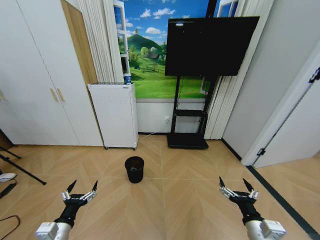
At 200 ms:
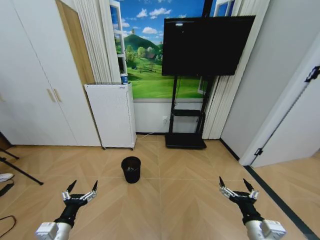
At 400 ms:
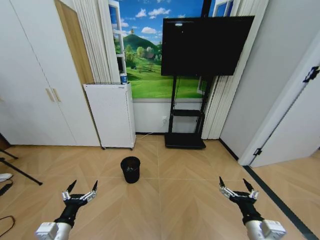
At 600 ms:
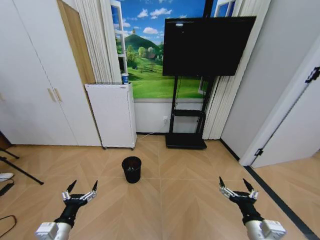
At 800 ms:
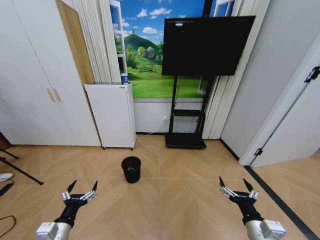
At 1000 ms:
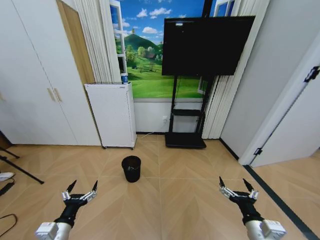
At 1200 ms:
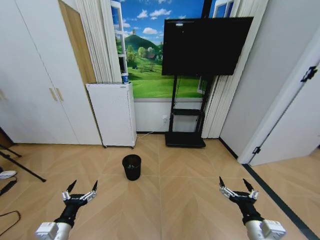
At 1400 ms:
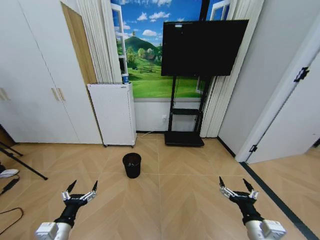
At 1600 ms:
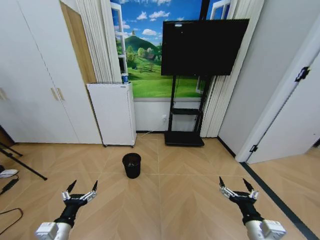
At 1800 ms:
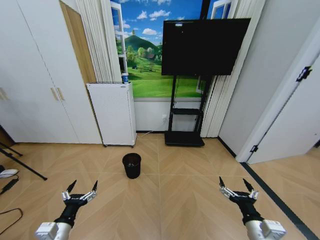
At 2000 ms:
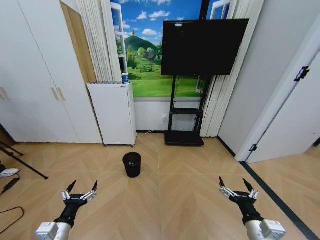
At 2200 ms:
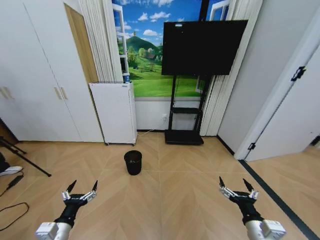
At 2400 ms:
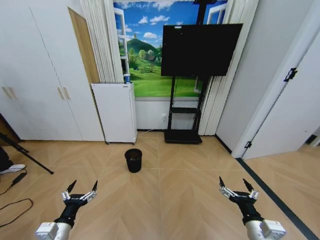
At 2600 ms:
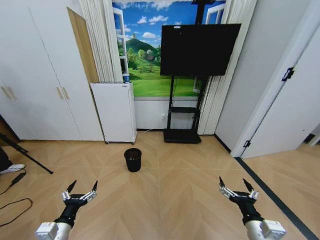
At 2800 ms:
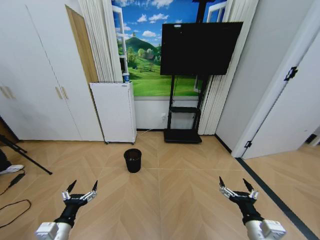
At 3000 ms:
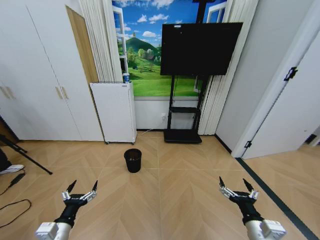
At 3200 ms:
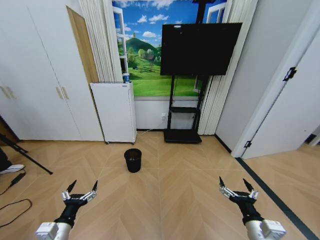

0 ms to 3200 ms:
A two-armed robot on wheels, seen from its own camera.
Task of the whole recording: Pick up the trash bin and place the garbage on the floor into it.
0 ms to 3200 ms: The two grippers keep their place.

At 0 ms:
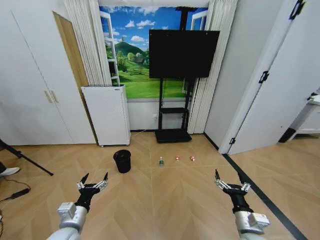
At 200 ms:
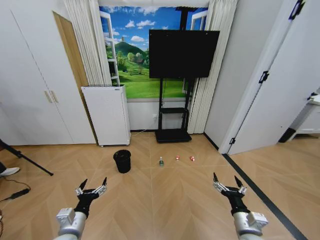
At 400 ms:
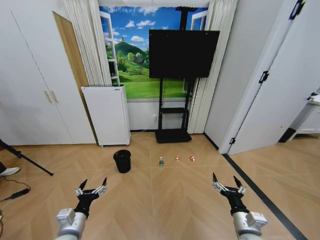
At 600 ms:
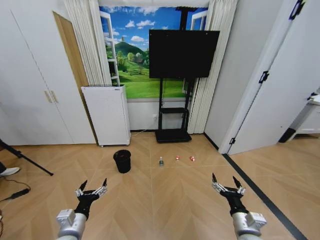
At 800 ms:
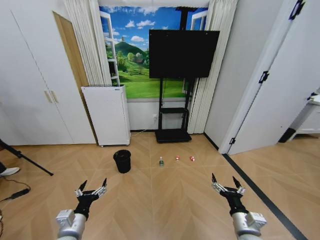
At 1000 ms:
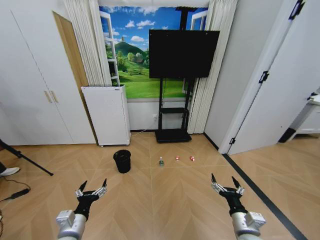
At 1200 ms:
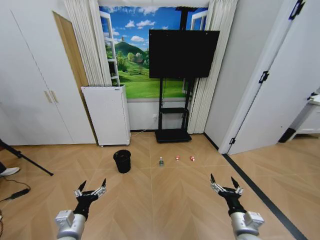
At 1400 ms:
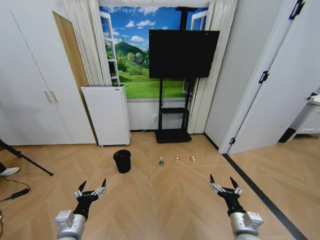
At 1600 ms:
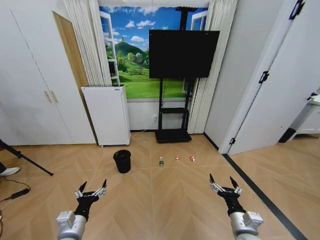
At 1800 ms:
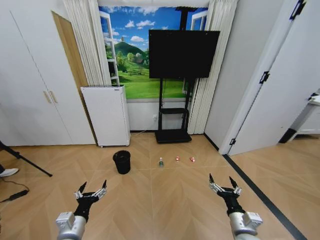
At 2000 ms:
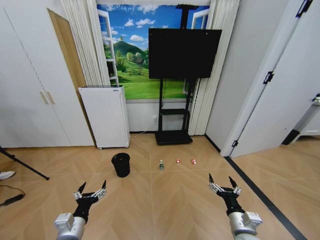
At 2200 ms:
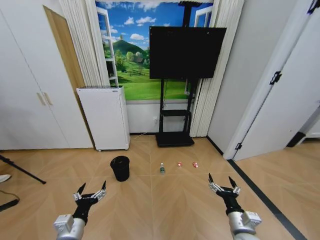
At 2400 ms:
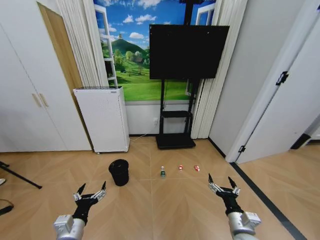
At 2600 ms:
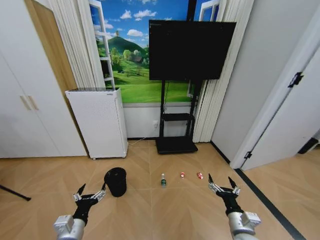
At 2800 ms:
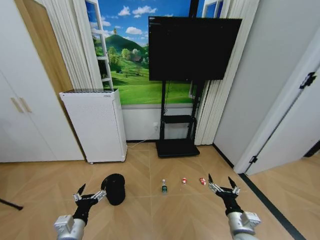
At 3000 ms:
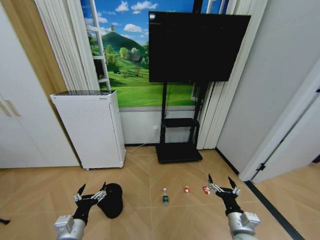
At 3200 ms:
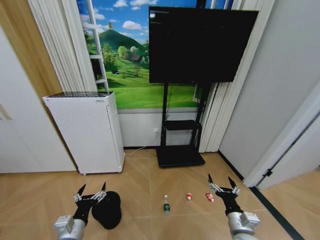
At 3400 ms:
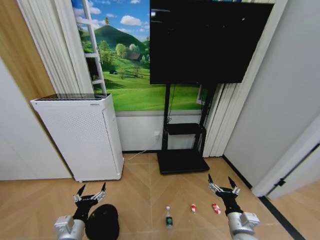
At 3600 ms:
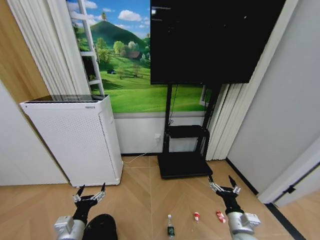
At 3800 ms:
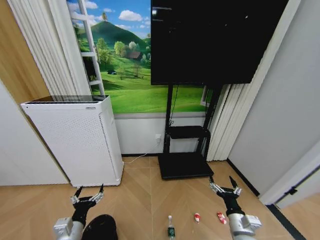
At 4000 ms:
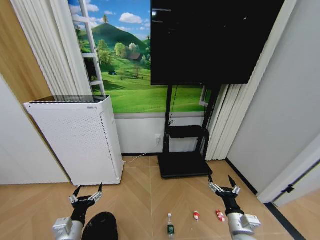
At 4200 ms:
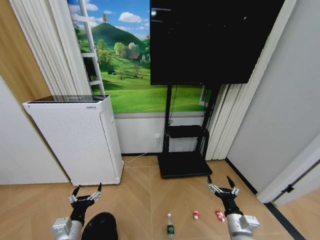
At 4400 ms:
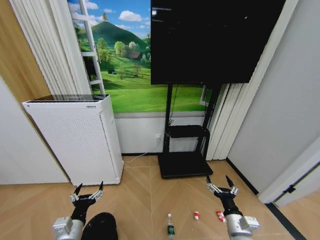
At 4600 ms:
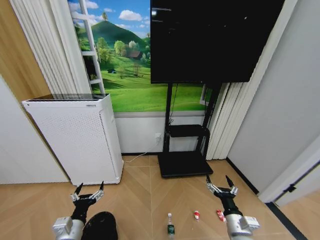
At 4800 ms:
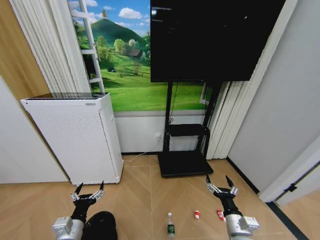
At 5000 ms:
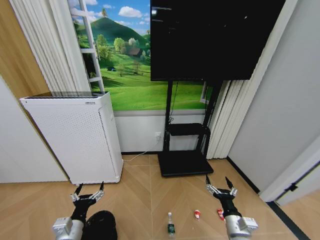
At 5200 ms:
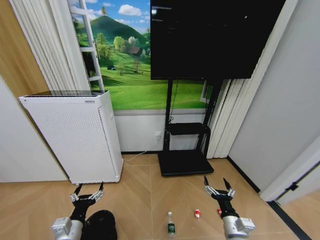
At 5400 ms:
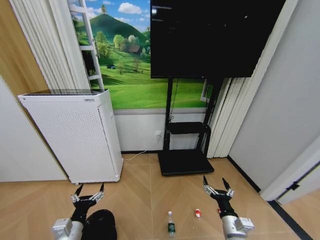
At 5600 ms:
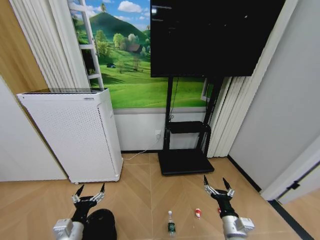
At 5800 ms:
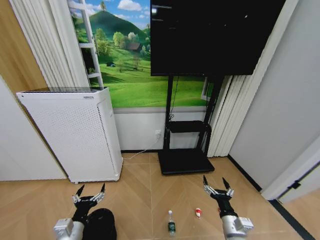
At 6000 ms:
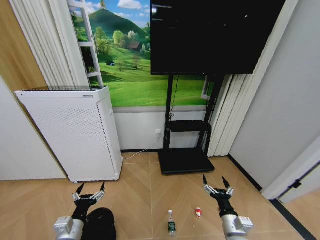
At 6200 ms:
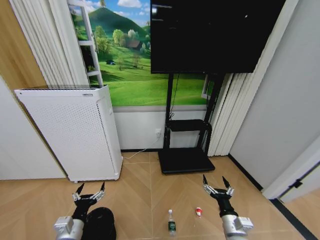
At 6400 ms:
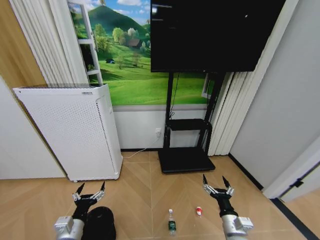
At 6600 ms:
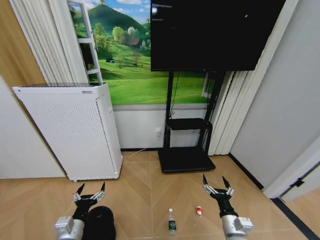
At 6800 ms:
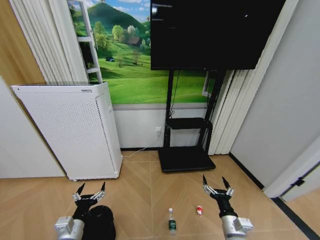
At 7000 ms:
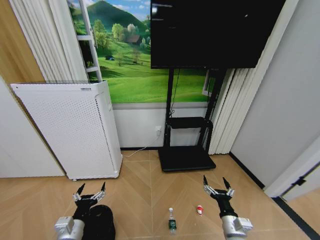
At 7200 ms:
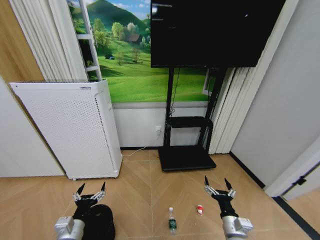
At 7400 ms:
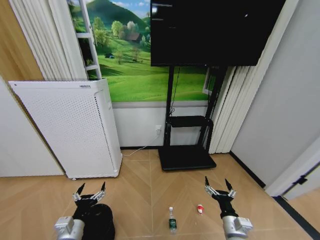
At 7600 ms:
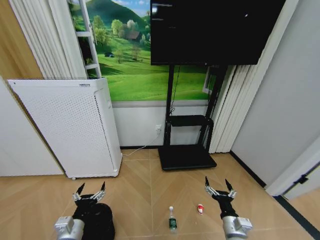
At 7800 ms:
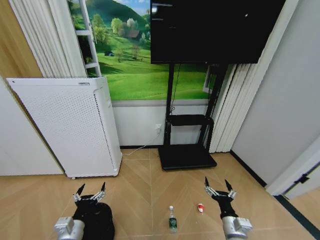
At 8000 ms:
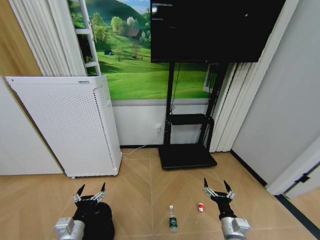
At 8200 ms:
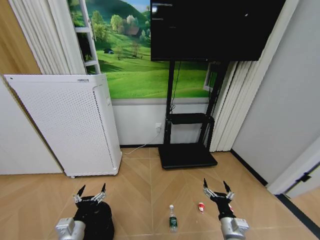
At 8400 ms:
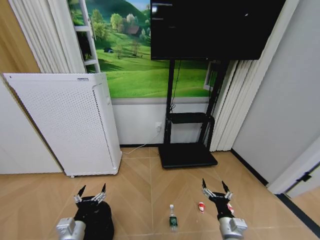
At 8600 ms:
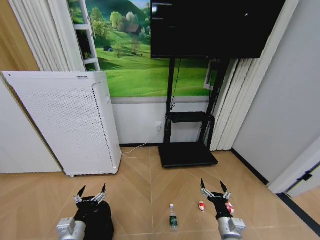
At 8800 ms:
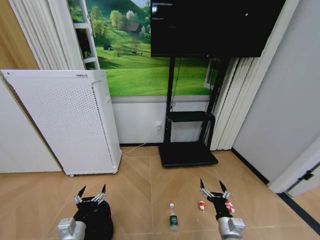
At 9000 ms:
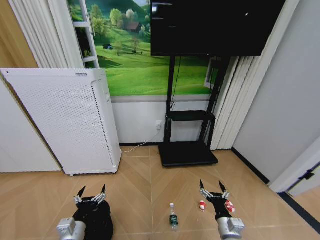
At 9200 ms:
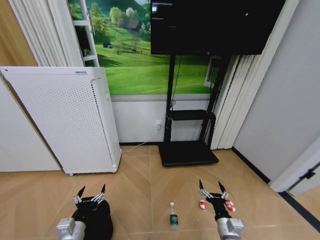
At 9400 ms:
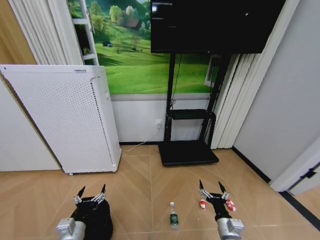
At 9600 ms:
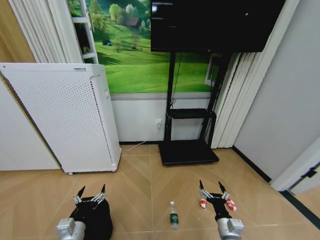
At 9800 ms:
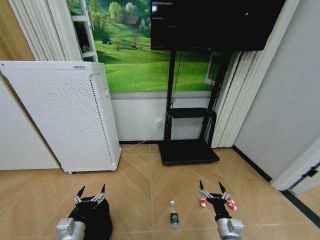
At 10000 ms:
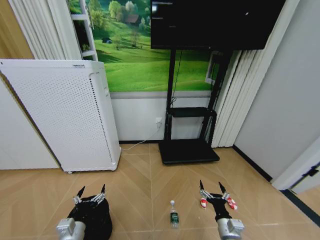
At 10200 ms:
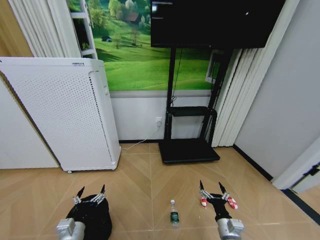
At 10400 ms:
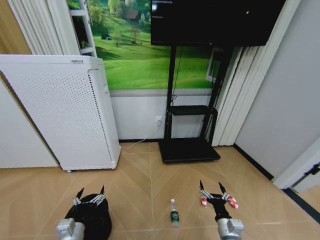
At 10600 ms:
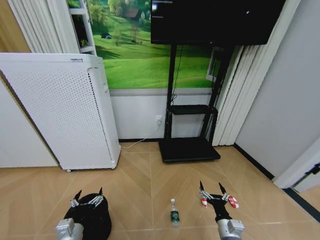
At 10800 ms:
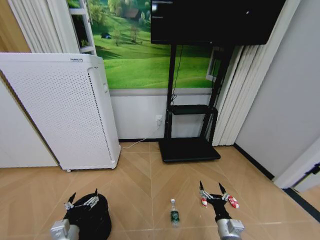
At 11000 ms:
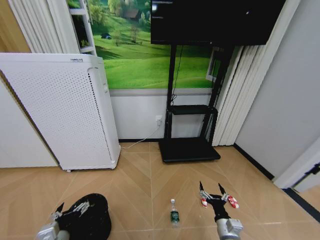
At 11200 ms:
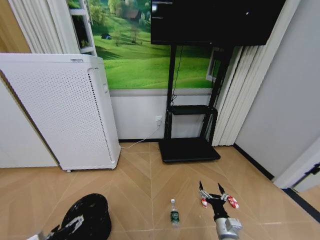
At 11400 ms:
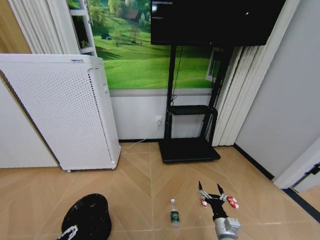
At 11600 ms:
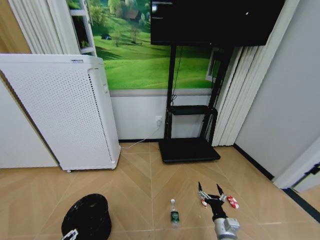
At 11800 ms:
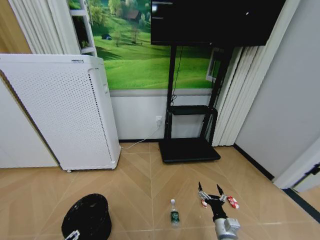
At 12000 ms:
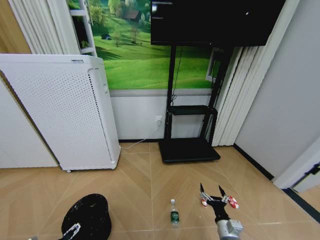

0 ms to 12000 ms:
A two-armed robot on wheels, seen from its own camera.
Task of the whole recording: Pick up the trash bin and place the garbage on the floor into it.
4400 ms to 6000 ms: The grippers move only a little.
6000 ms to 7600 ms: The two grippers keep their place.
7600 ms to 9000 ms: The grippers stay close to where they were, moving slightly.
9000 ms to 10400 ms: Neither gripper changes place.
10400 ms to 12000 ms: The left gripper moves to the left, some 10 cm.

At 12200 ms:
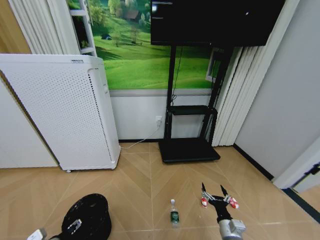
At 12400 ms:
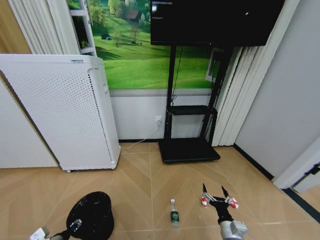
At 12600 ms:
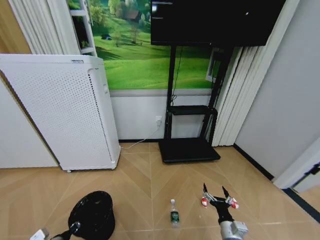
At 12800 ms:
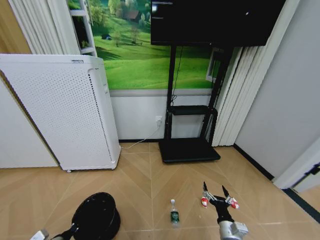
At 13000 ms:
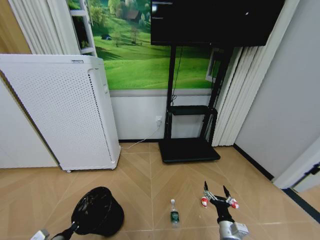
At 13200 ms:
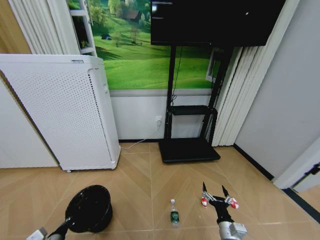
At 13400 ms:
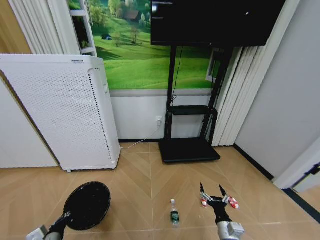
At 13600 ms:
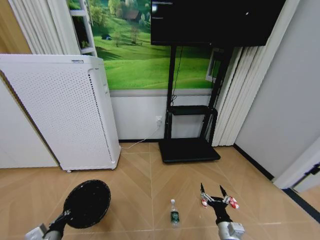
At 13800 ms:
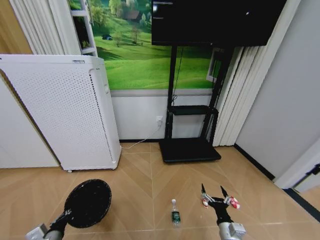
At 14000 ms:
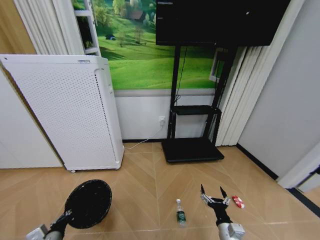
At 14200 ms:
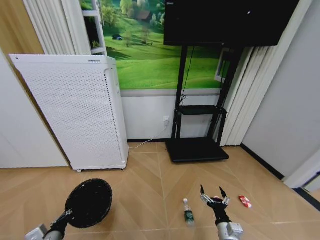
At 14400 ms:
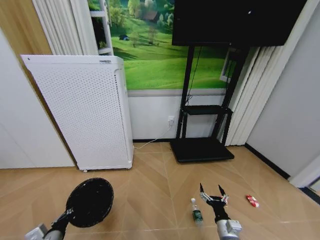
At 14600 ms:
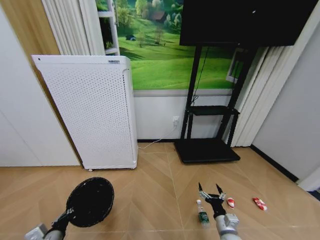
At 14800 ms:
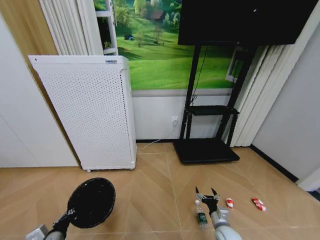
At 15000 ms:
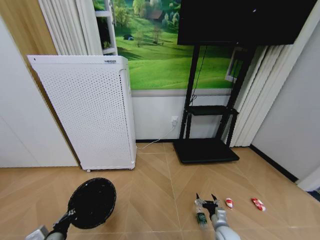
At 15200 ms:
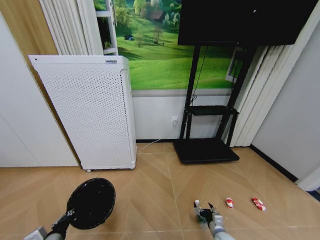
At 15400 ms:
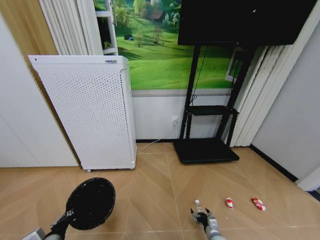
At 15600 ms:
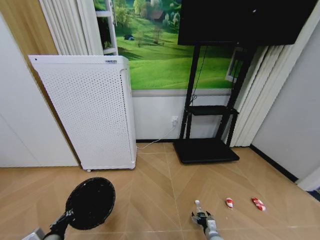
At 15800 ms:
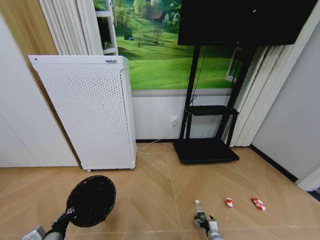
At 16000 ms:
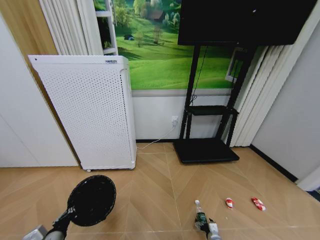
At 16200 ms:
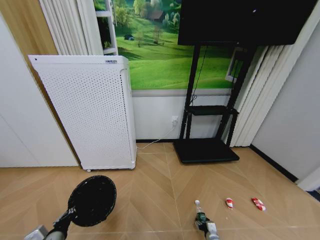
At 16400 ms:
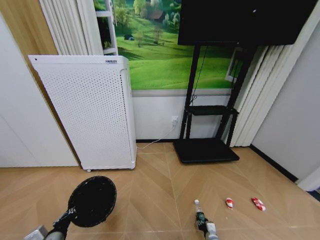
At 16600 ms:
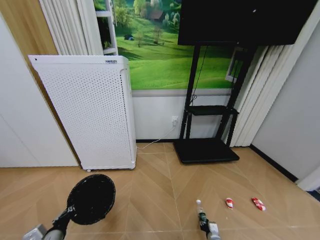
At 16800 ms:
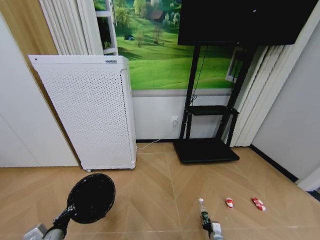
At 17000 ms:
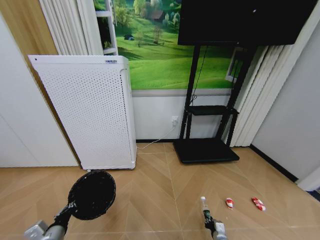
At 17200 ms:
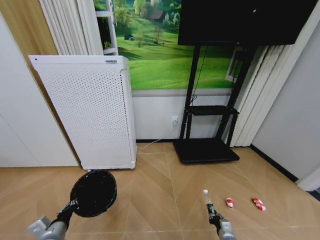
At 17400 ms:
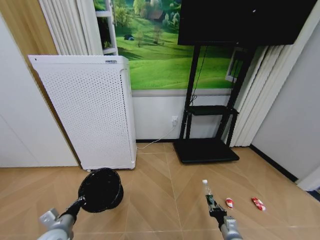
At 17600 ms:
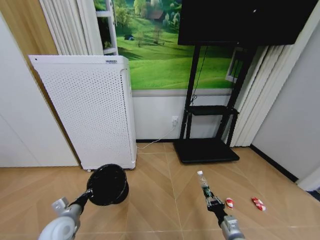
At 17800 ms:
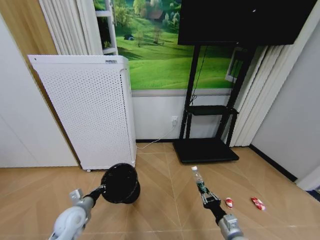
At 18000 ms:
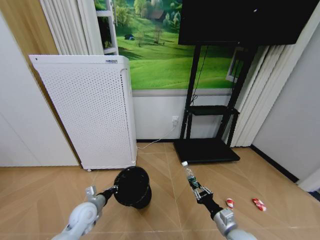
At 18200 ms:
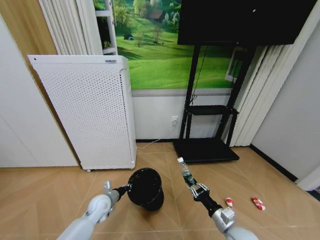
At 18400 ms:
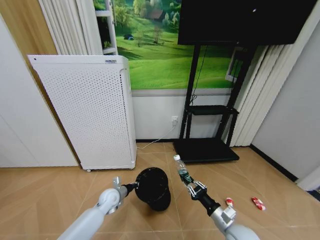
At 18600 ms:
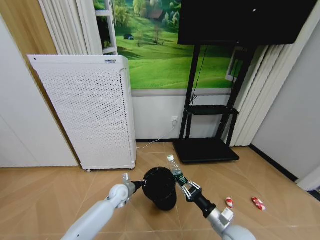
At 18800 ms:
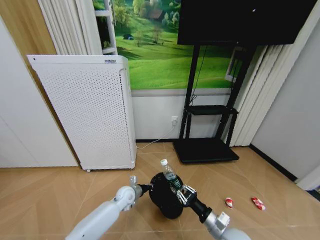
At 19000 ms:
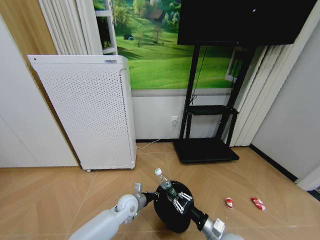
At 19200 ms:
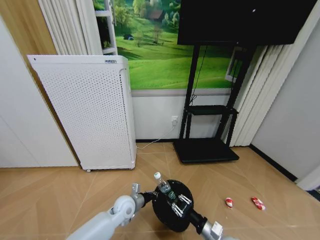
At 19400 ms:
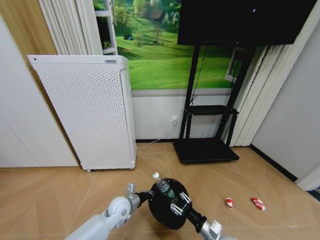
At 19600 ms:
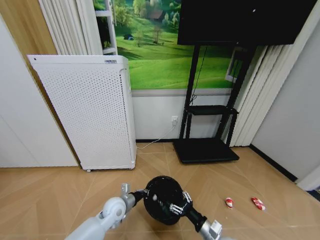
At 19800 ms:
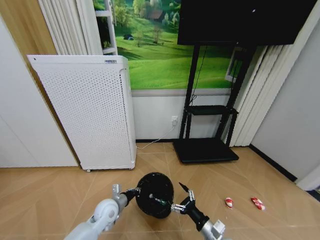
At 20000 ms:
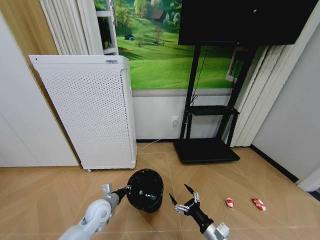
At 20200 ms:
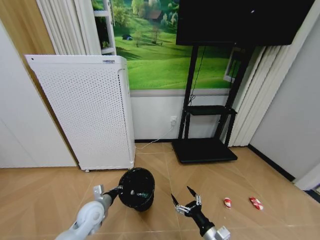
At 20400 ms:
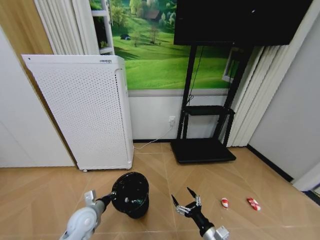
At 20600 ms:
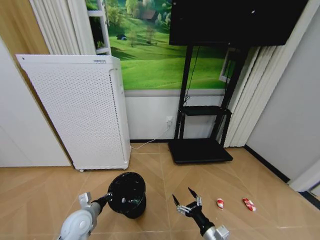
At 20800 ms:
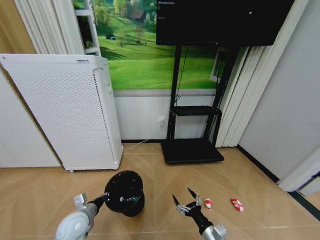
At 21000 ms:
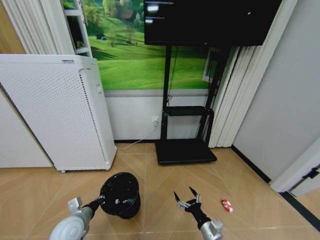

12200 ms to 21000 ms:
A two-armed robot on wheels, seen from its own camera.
Task of the whole recording: Pick up the trash bin and place the garbage on the floor into it.
12200 ms to 13600 ms: The left gripper closes up.
13600 ms to 15200 ms: The right gripper moves downward and forward, some 15 cm.
15200 ms to 16600 ms: The right gripper goes roughly 5 cm downward, and closes.
16600 ms to 18000 ms: The right gripper goes about 20 cm upward. The left gripper moves forward, approximately 15 cm.
18000 ms to 19600 ms: The right gripper ends up roughly 5 cm from where it was, and opens. Meanwhile the left gripper moves to the right, about 10 cm.
19600 ms to 21000 ms: The left gripper moves to the left and backward, some 15 cm.
